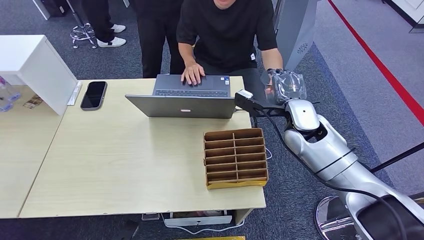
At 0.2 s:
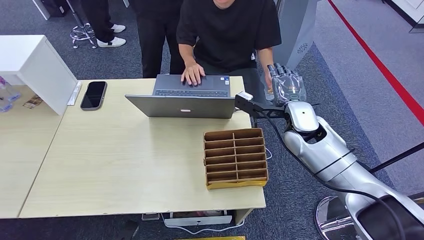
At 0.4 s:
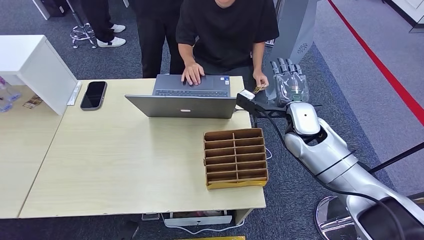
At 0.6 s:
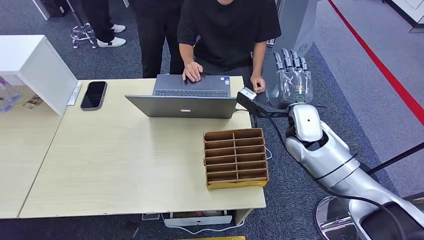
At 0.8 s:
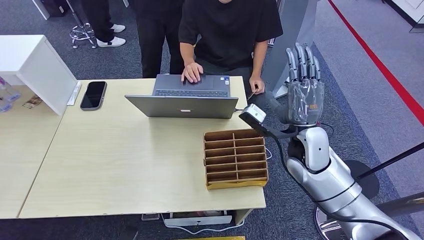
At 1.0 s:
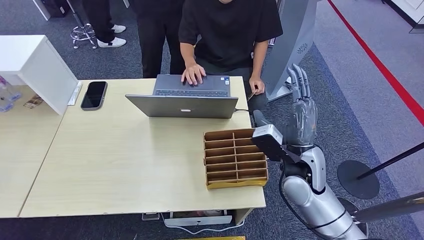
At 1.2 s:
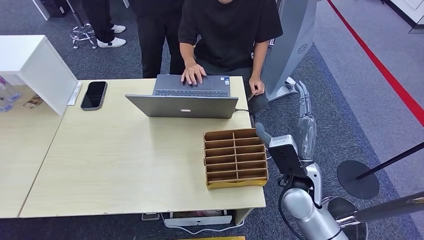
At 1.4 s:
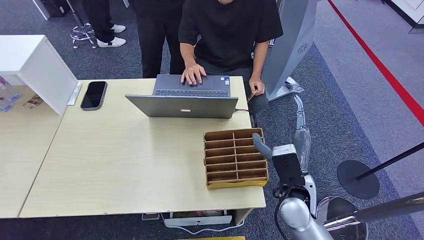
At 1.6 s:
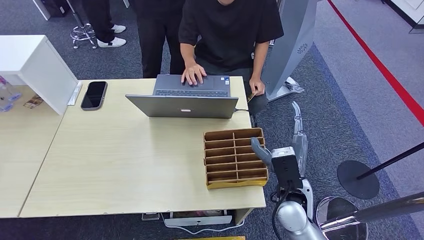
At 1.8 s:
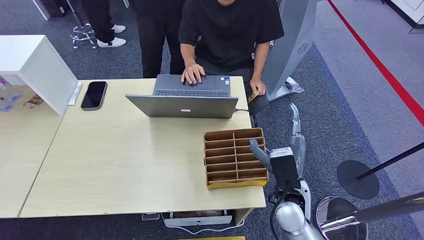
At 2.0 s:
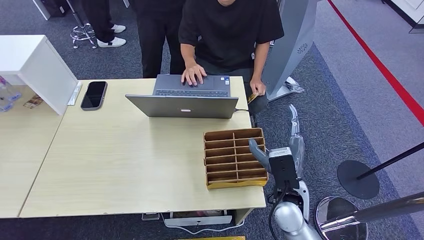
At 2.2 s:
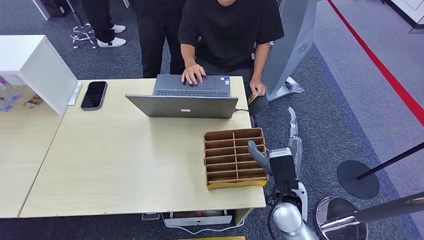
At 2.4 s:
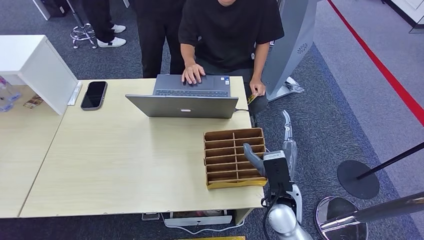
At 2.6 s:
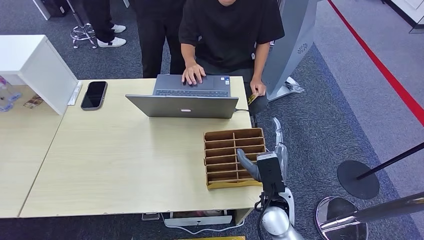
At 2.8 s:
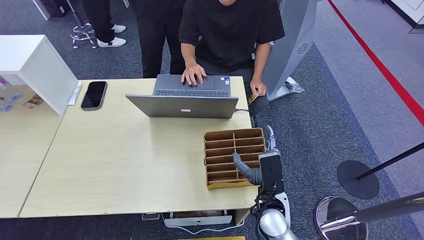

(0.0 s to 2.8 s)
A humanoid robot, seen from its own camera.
Step, 0.0 s - 2.8 s: Hand the key card to the target.
0.0 s - 1.4 s: The right hand is displaced backward and downward by about 15 cm.
1.4 s - 2.8 s: The right hand moves downward and to the left, roughly 10 cm.
